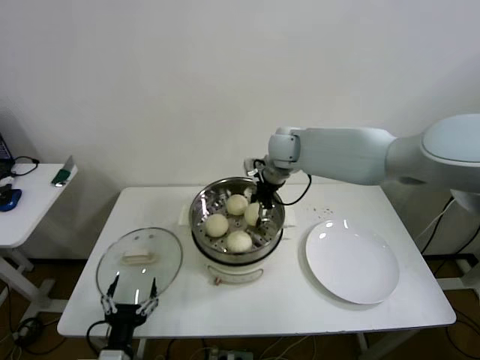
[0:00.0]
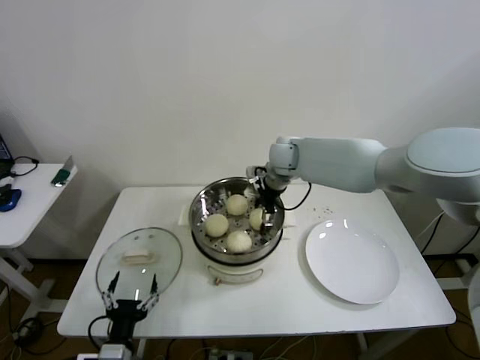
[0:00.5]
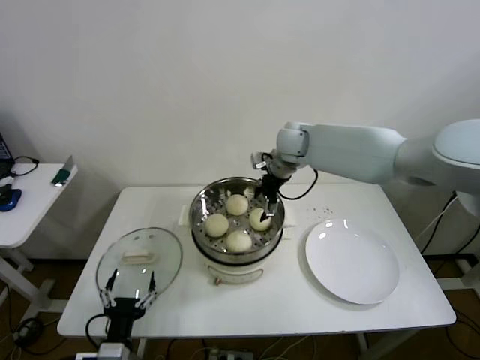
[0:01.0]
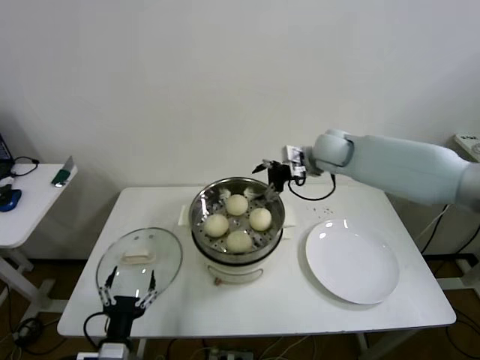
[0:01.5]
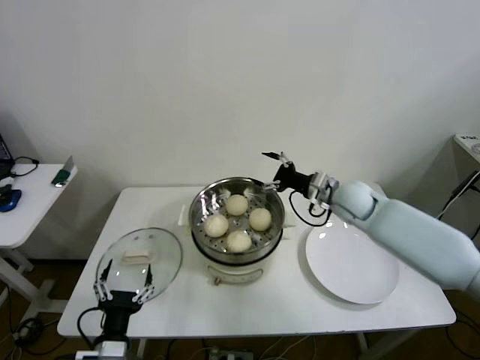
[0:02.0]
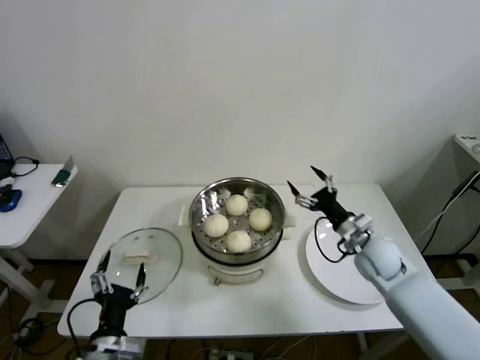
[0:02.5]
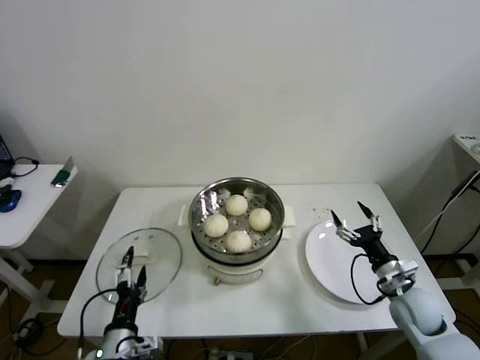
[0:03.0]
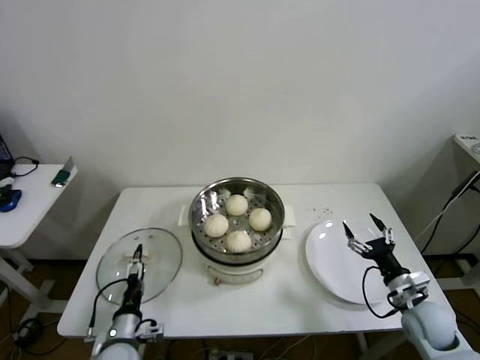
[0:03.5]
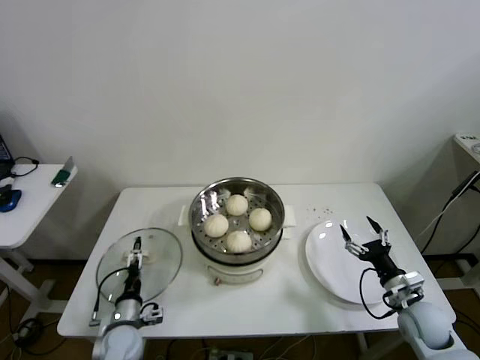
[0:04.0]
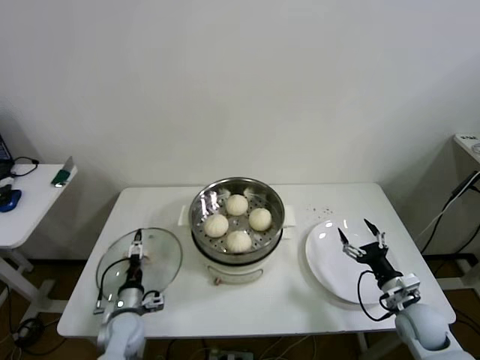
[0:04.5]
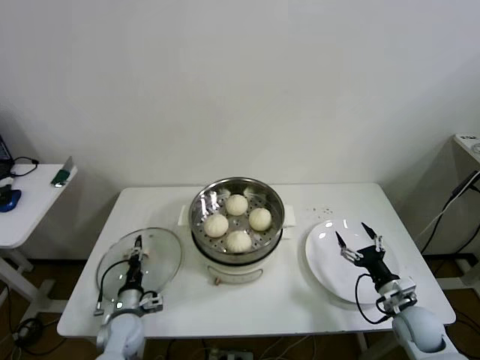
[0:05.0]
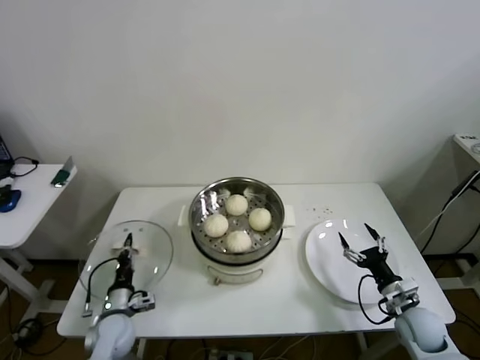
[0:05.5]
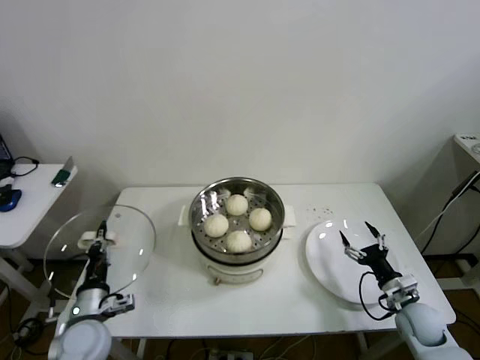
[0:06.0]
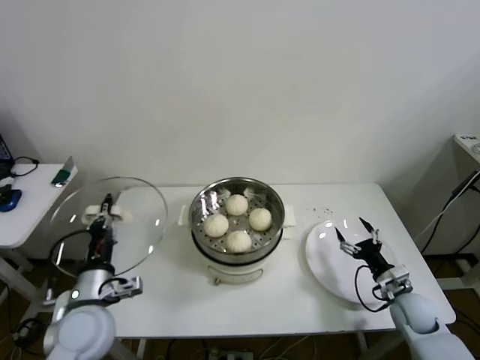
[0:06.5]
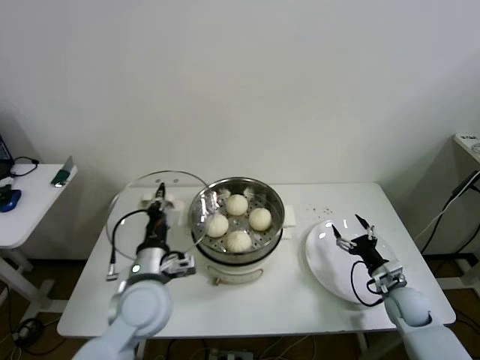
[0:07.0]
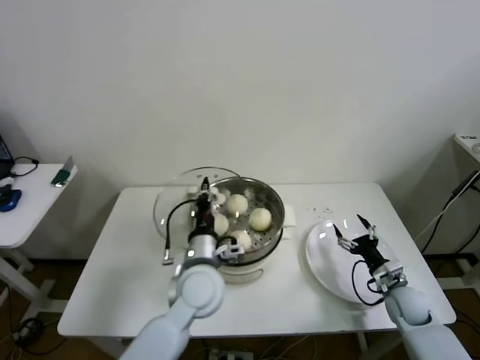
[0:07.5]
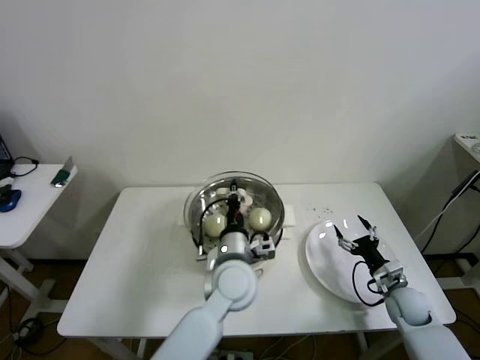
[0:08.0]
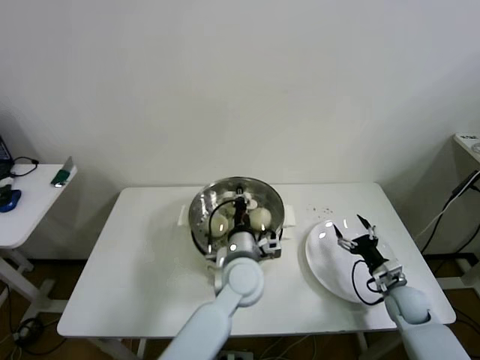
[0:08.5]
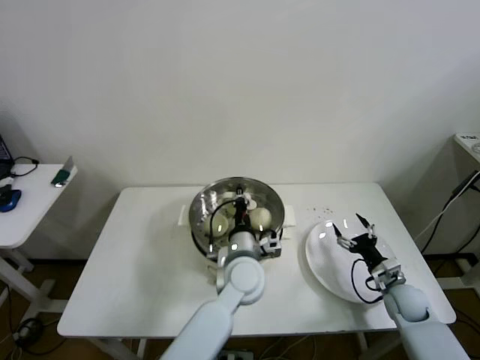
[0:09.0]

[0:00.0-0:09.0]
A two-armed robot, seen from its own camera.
Step, 0:02.0 to 0:05.0: Grasp the pot lid with left gripper.
0:00.0 to 0:02.0: The right gripper shifts roughly 20 cm to the right, downward and backward, and opens.
0:02.0 to 0:04.5: The left gripper heads forward and downward, covering some 20 cm, while the right gripper is displaced backward, downward and to the right by about 30 cm.
0:04.5 to 0:07.0: The right gripper is displaced forward by some 5 cm. The left gripper heads upward and to the right, covering about 25 cm, and closes.
0:07.0 to 0:09.0: The left gripper moves to the right, some 20 cm.

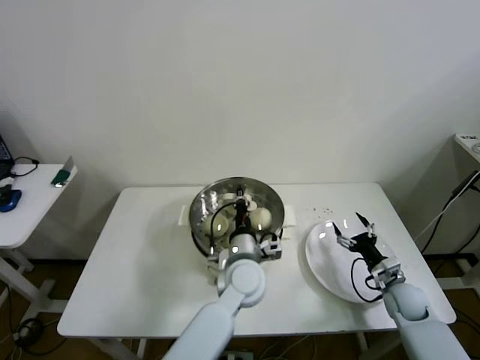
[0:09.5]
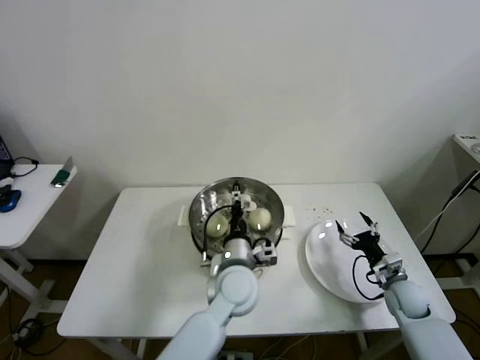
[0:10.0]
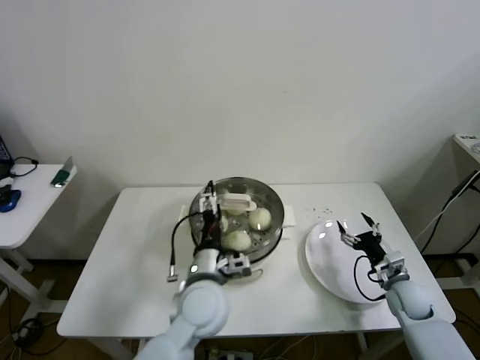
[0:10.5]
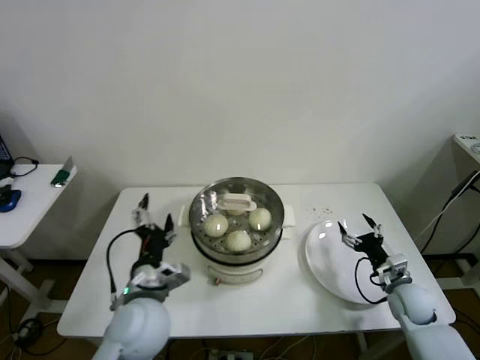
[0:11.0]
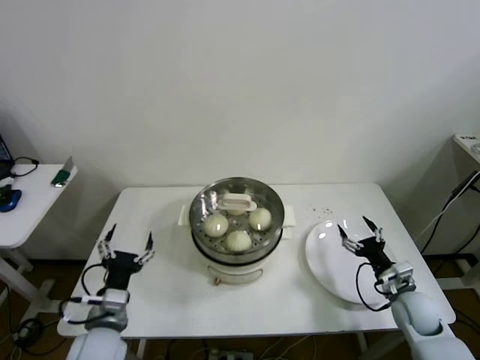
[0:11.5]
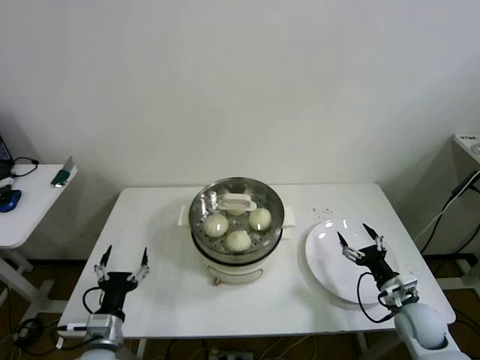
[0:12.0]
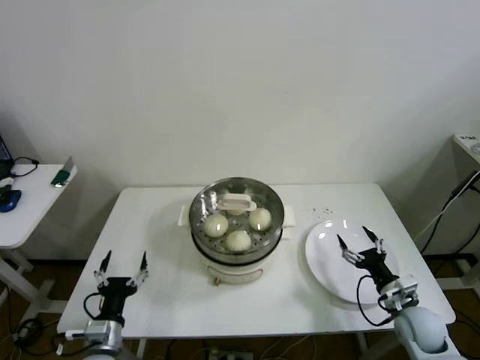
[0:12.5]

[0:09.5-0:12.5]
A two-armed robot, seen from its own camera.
0:09.5 to 0:11.0: The left gripper moves to the left and backward, roughly 20 cm, and opens up.
0:11.0 to 0:12.5: The right gripper is displaced backward by about 5 cm; the left gripper is displaced downward, to the left and backward by roughly 20 cm.

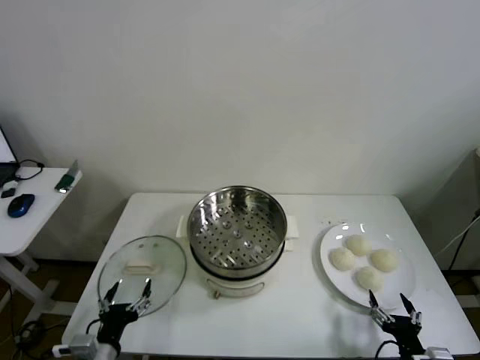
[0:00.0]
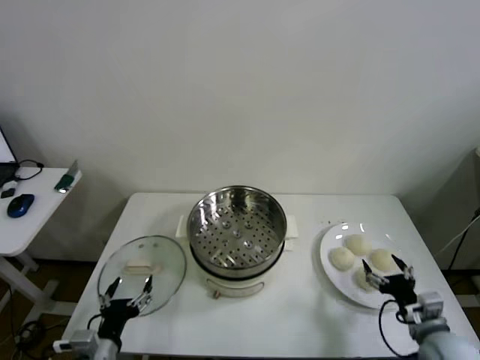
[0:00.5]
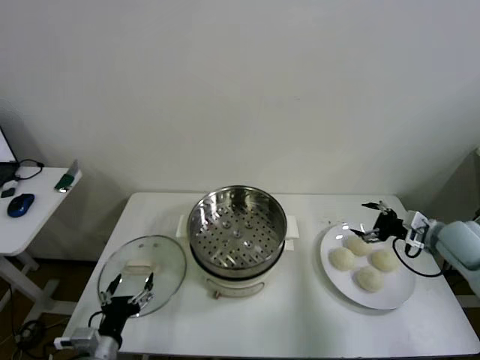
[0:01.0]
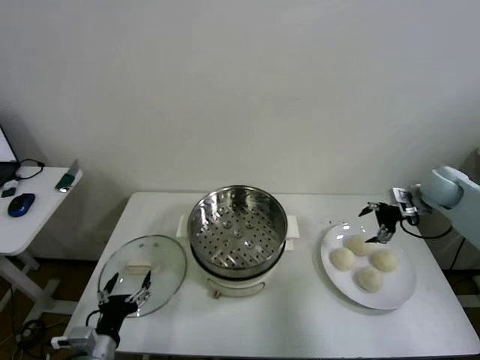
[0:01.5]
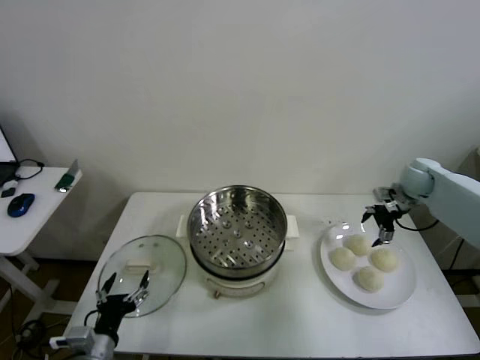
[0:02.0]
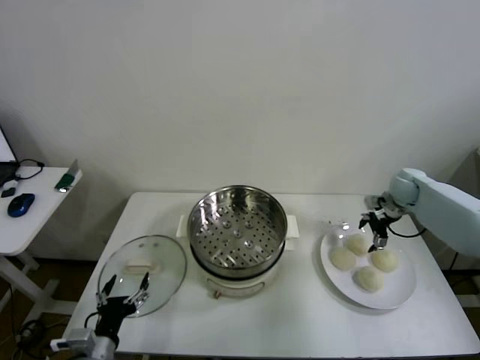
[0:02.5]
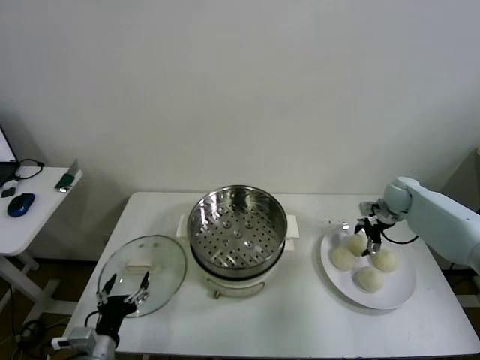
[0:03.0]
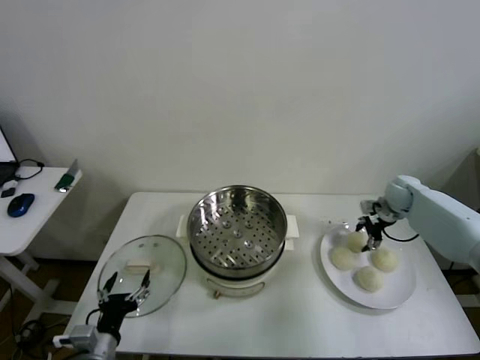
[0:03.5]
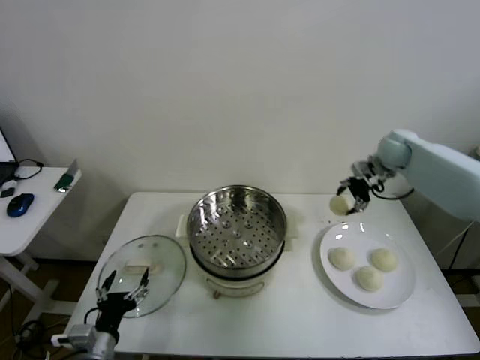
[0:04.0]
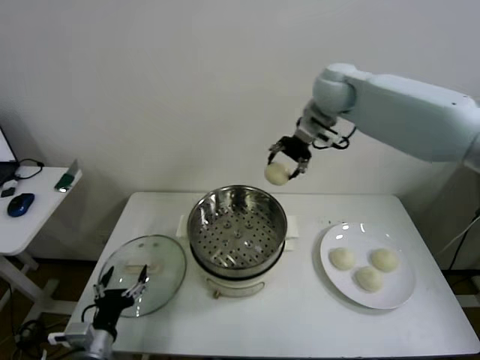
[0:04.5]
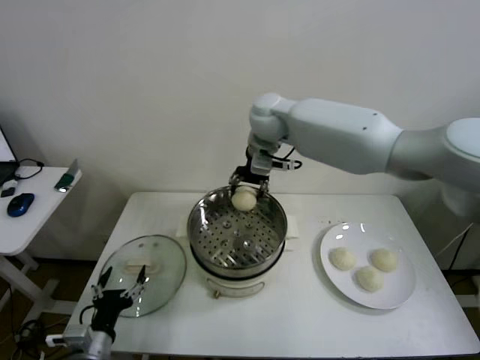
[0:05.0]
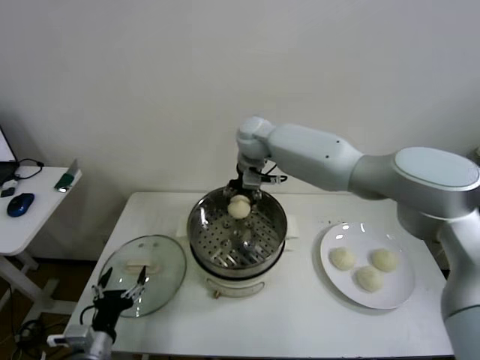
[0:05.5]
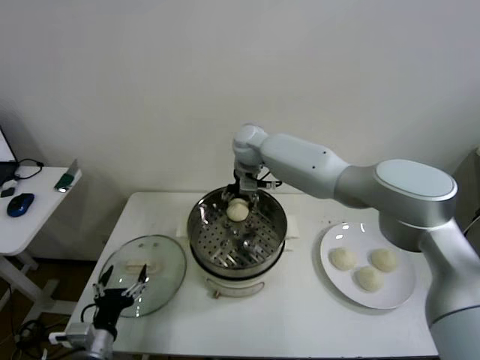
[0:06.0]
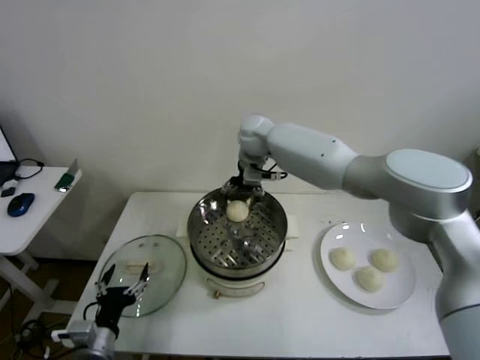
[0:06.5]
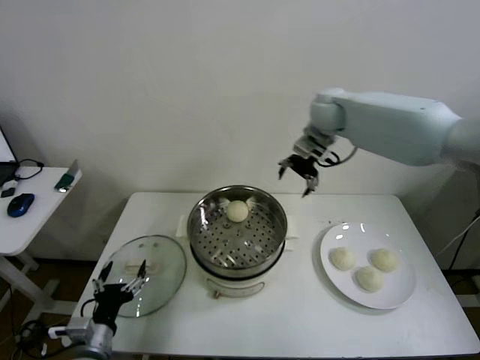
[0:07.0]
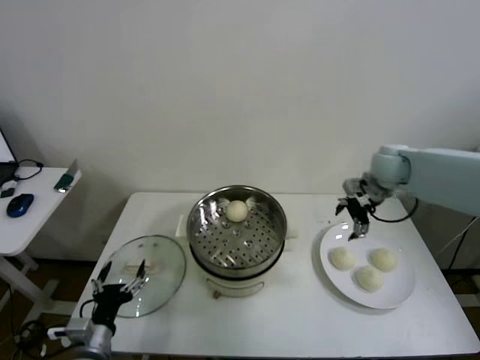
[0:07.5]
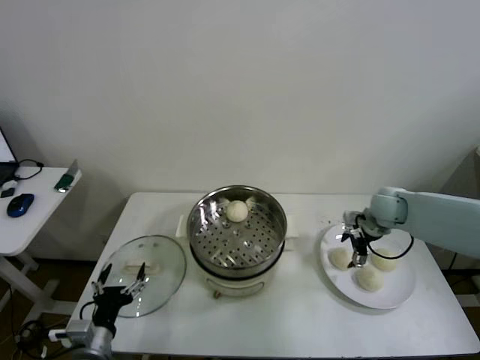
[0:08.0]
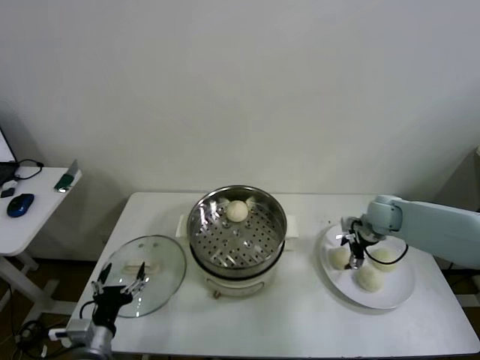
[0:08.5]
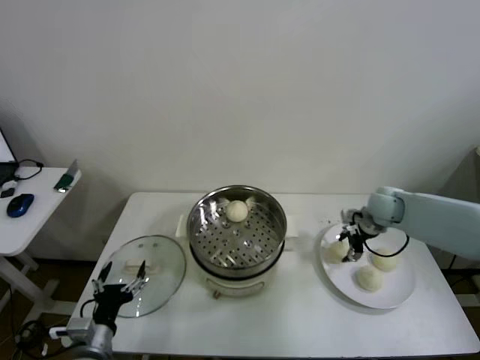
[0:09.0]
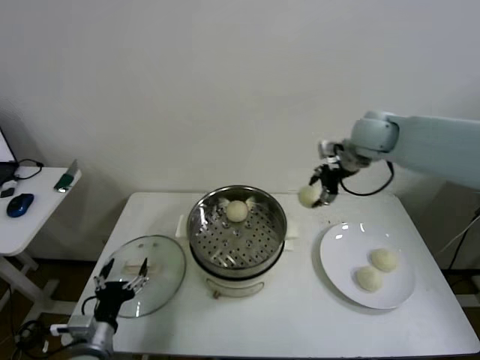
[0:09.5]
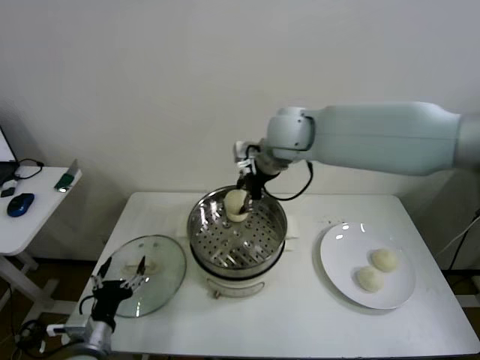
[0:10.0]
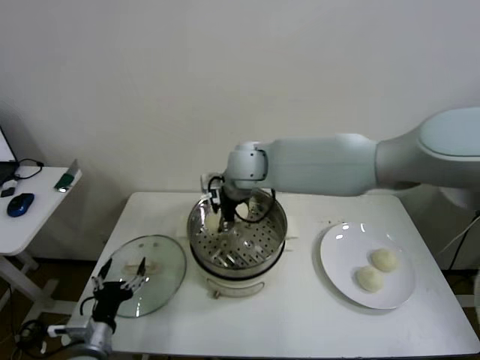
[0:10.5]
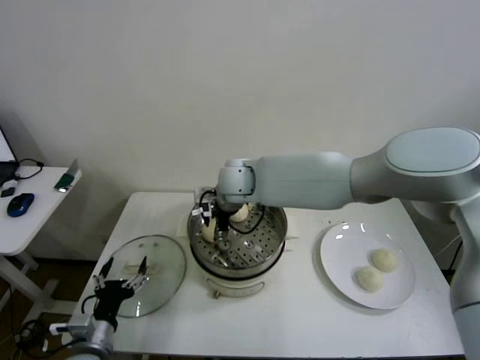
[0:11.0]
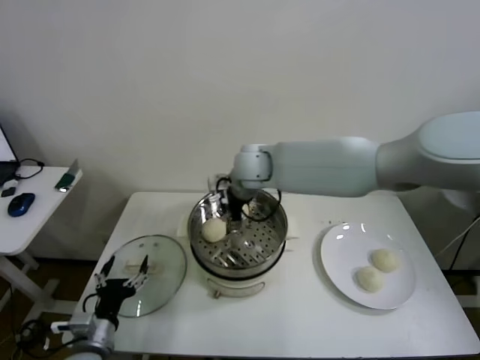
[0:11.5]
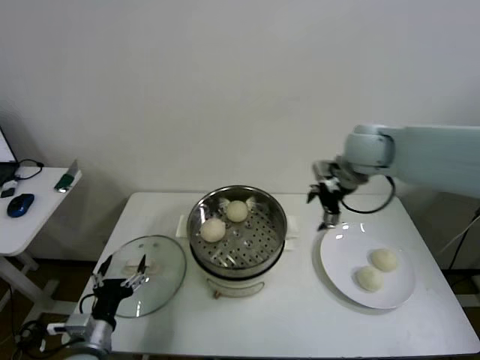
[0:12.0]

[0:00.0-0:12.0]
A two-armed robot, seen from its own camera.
Step, 0:00.0 to 0:03.0: Grasp the baozi in the plate with right gripper.
Step, 0:03.5 to 0:06.0: Place the baozi on the steamer with right gripper.
Step, 0:07.0 to 0:08.5: Grasp the baozi in the plate with right gripper.
Step, 0:09.0 to 0:11.0: Place the baozi on the steamer with right gripper.
0:02.0 to 0:04.0: The right gripper heads upward and to the left, covering some 15 cm, and closes.
0:04.0 to 0:06.0: The right gripper goes some 35 cm to the left, and opens its fingers.
0:06.0 to 0:08.0: The right gripper heads to the right, covering about 35 cm, and opens.
0:08.0 to 0:10.0: The right gripper travels to the left and upward by roughly 35 cm, and closes its fingers.
0:10.0 to 0:12.0: The right gripper moves to the right, roughly 20 cm, and opens up.

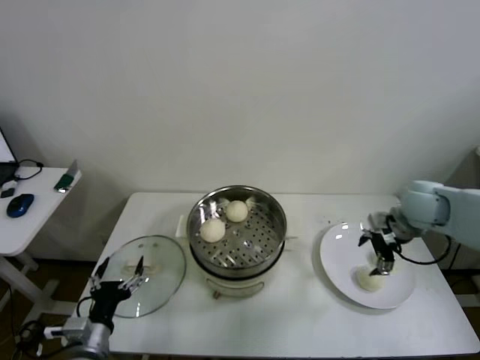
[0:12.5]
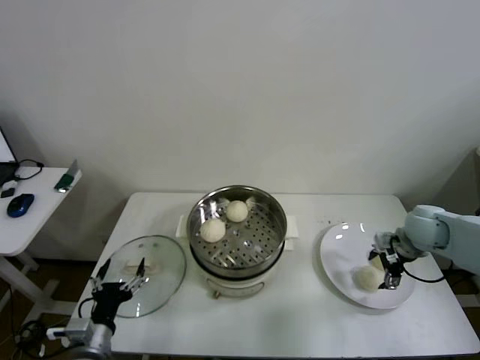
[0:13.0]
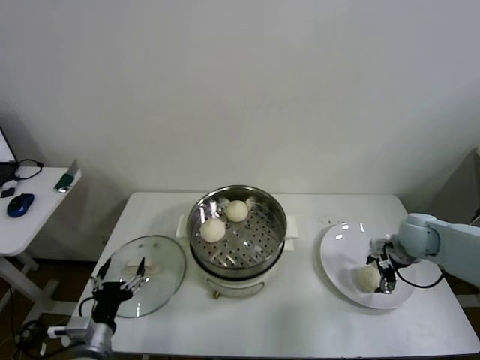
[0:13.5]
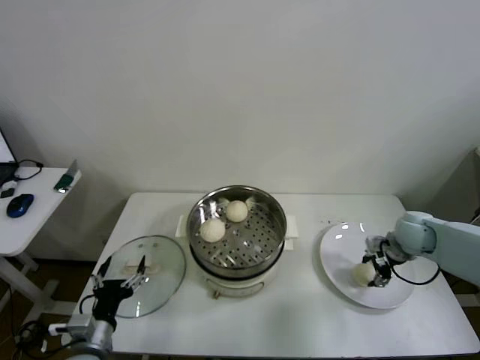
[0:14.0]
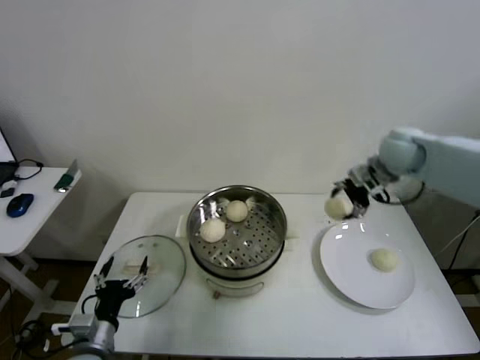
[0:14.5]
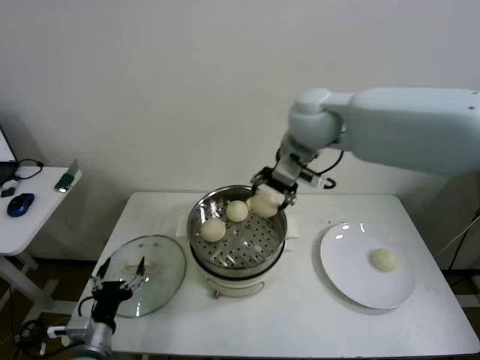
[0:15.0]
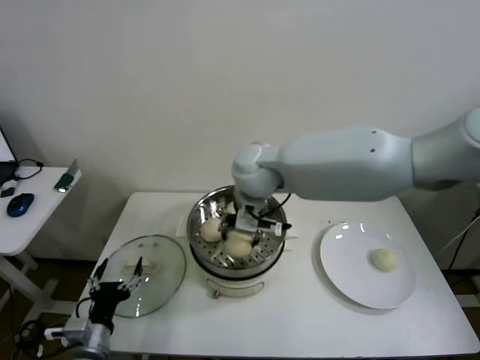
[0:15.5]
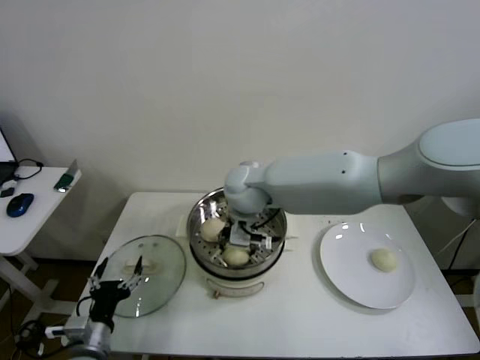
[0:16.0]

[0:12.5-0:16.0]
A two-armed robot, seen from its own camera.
0:12.5 to 0:14.5: The right gripper shifts some 15 cm upward, forward and to the left, and closes up.
0:14.5 to 0:16.0: The right gripper shifts roughly 30 cm to the left.
